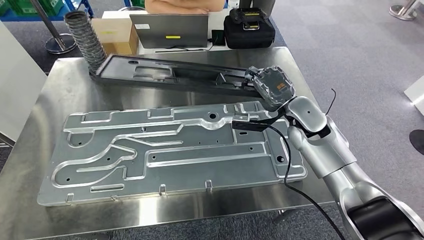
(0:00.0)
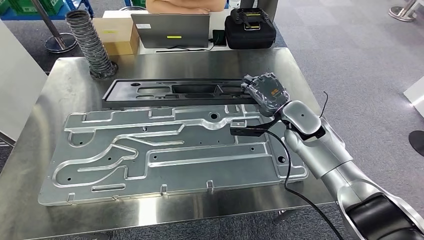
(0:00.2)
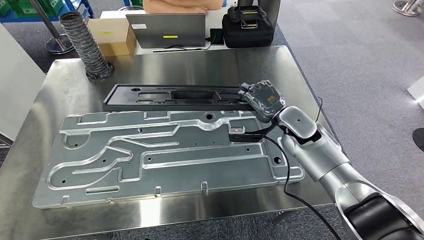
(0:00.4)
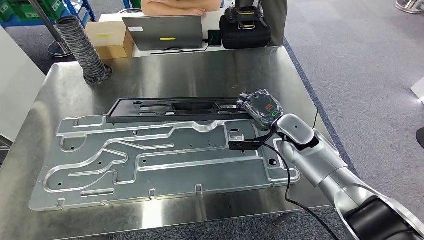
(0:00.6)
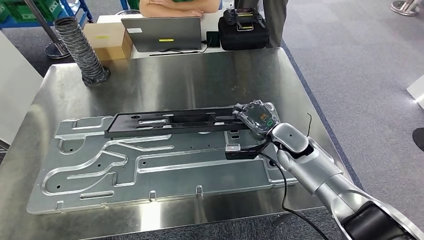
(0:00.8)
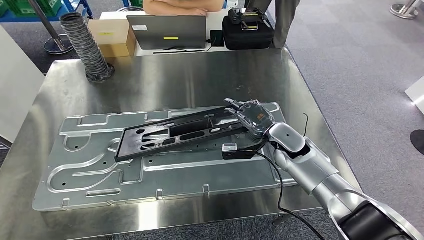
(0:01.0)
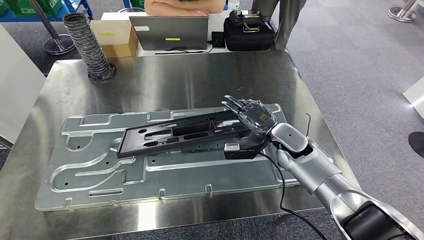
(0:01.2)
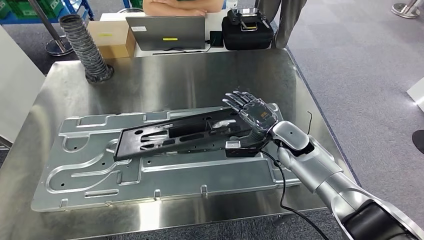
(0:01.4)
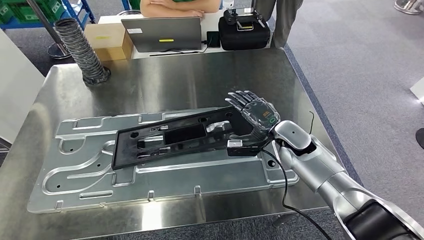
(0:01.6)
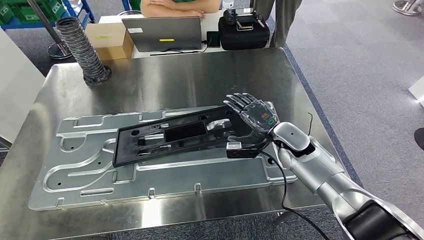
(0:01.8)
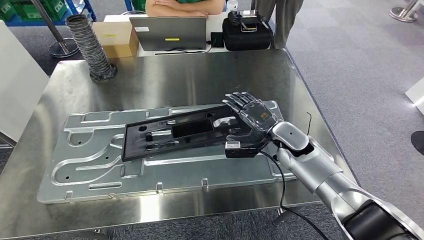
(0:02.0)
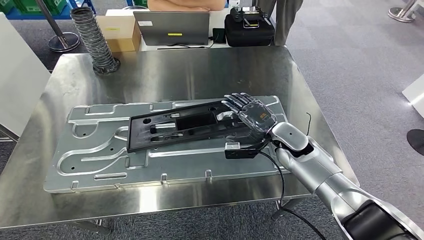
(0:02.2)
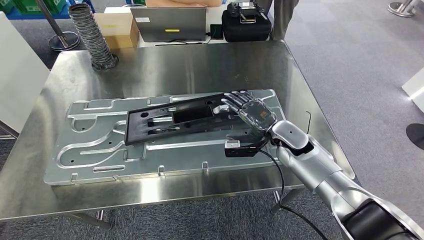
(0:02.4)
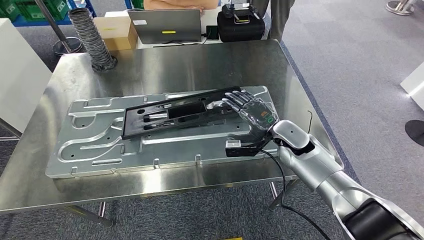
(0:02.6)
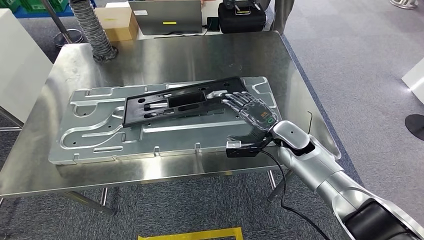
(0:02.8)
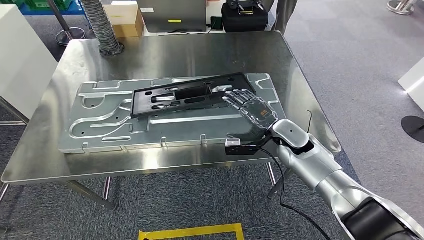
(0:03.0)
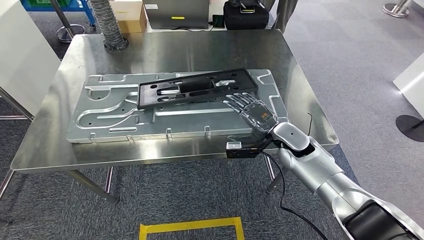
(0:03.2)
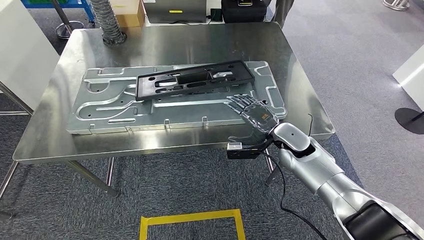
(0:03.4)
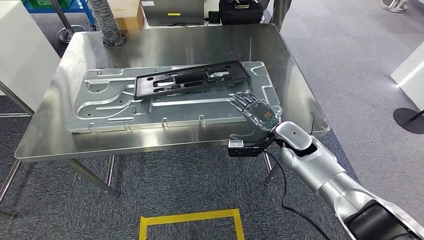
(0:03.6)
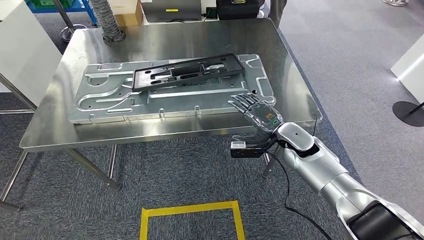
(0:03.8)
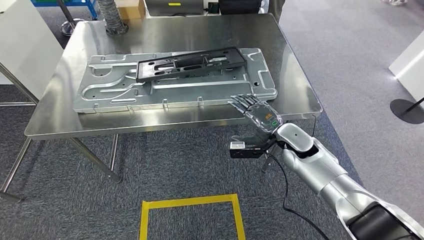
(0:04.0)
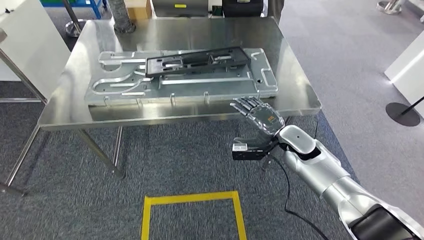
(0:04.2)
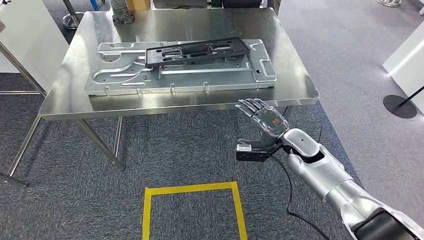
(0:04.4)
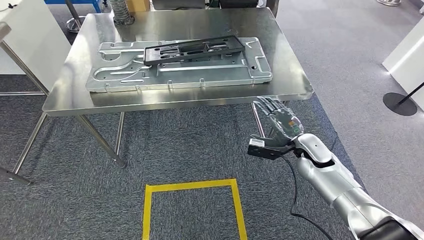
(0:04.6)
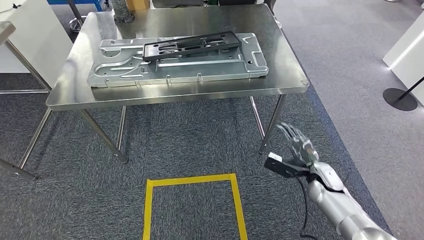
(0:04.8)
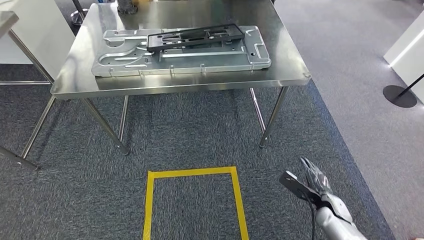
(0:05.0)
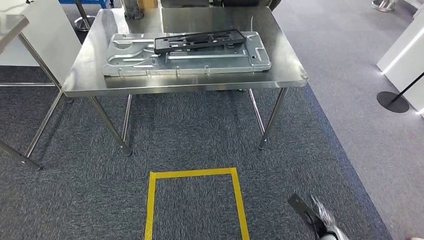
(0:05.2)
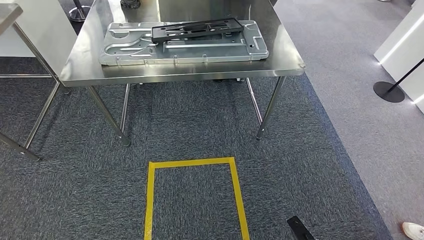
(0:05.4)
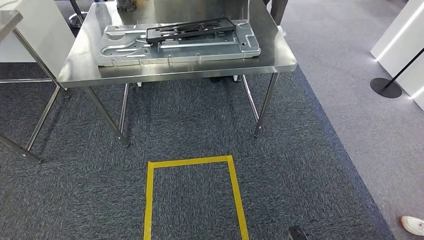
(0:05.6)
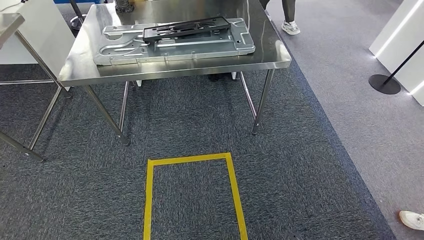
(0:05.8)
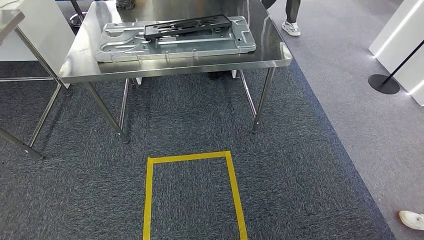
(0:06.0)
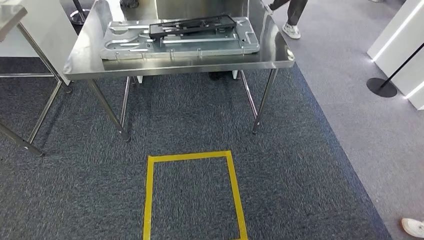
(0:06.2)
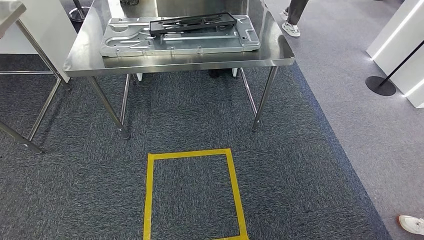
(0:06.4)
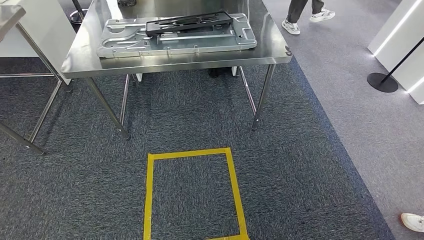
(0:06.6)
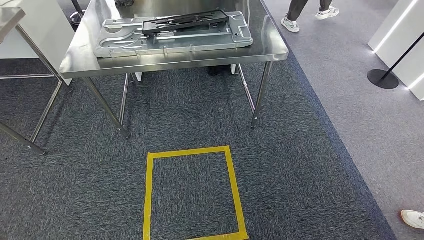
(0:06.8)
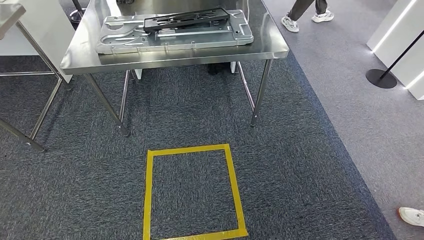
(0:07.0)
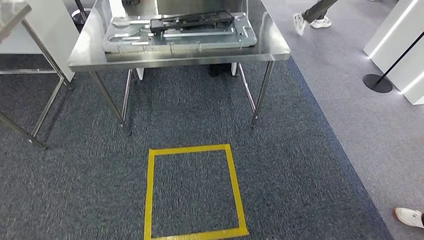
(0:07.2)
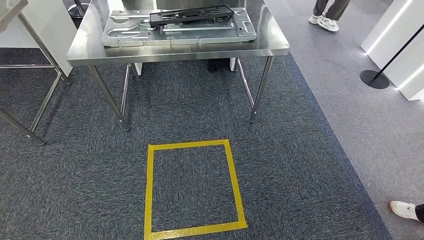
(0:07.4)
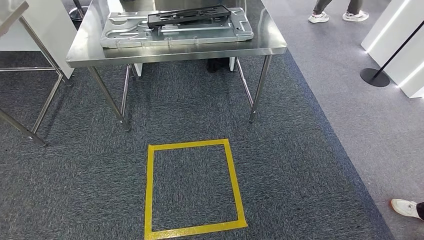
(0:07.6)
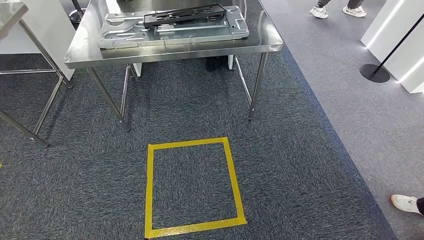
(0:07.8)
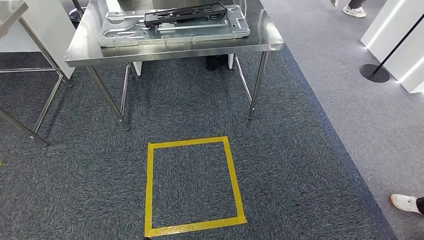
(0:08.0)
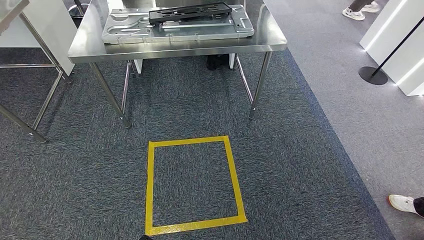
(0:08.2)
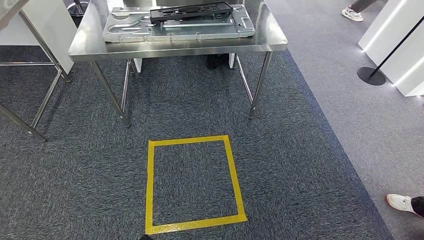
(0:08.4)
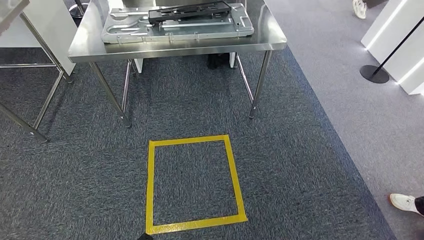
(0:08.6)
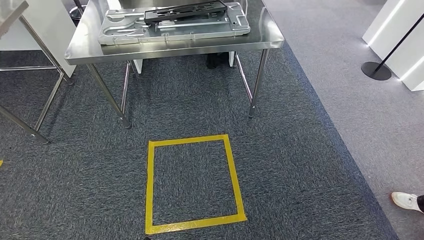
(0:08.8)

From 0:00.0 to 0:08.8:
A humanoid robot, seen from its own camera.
Step, from 0:00.0 to 0:02.0: Insert the large parts into the corresponding slots on the workbench.
Step, from 0:03.2 to 0:08.8: Return to the initial position at the shelf.
From 0:07.4 to 0:08.8: The hands make only small movements.

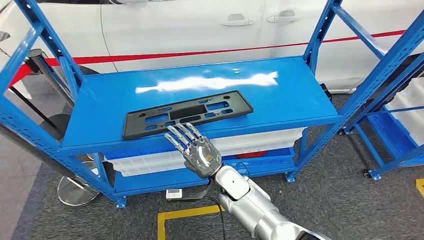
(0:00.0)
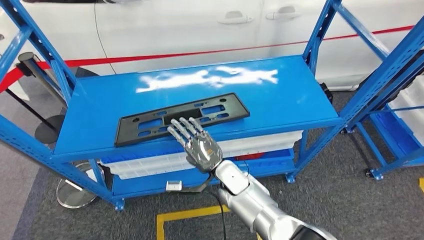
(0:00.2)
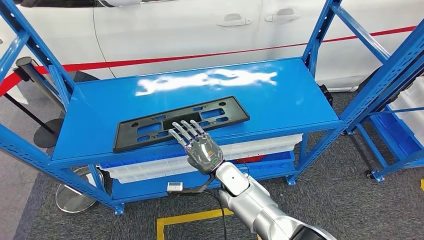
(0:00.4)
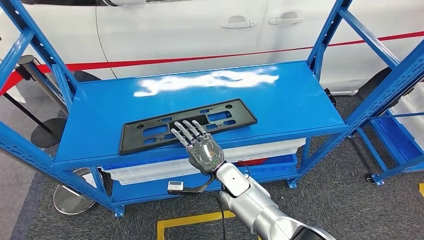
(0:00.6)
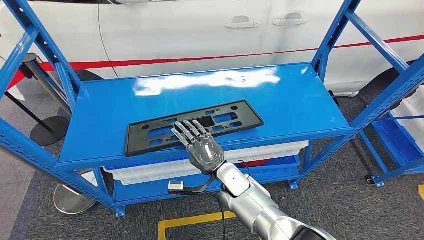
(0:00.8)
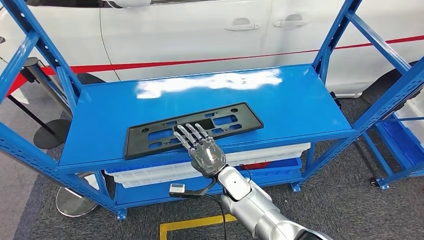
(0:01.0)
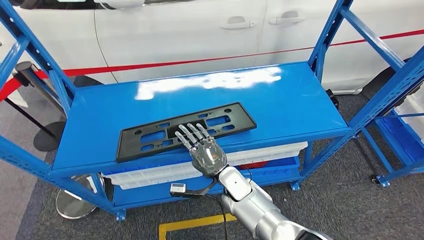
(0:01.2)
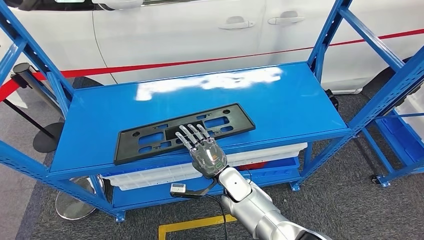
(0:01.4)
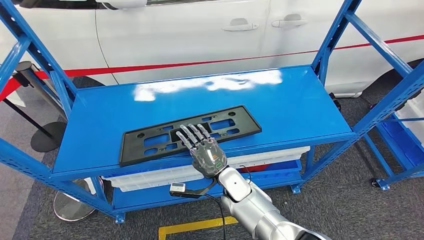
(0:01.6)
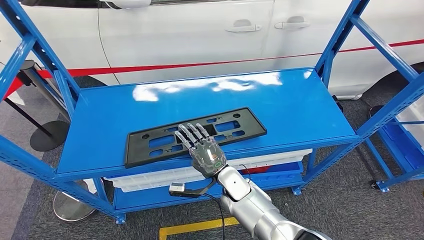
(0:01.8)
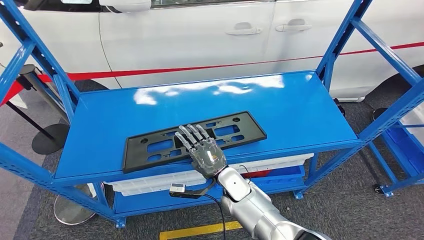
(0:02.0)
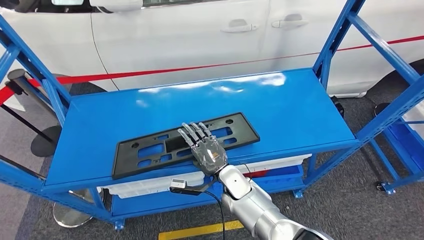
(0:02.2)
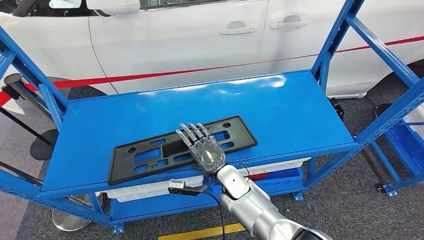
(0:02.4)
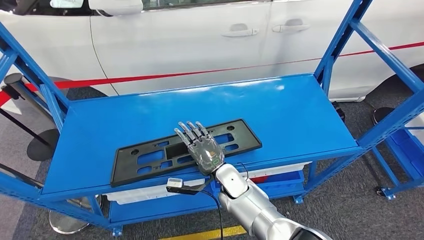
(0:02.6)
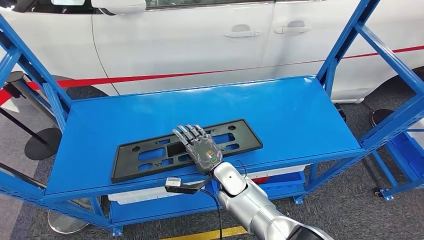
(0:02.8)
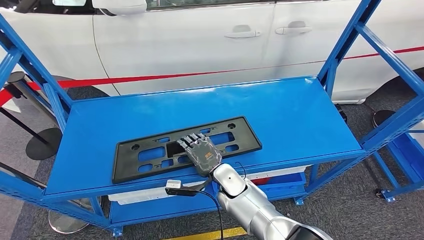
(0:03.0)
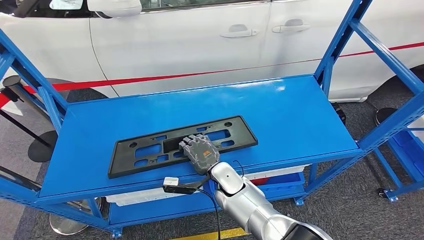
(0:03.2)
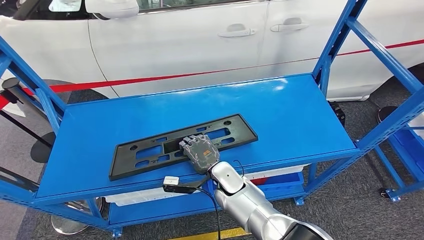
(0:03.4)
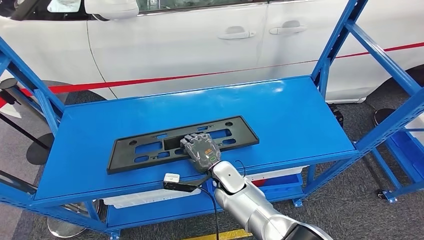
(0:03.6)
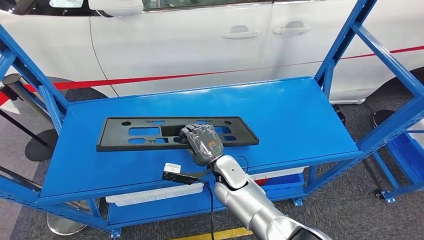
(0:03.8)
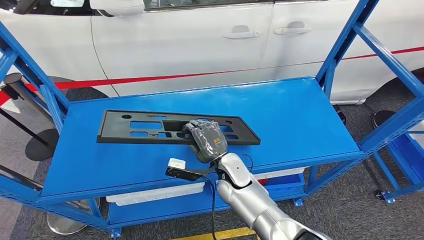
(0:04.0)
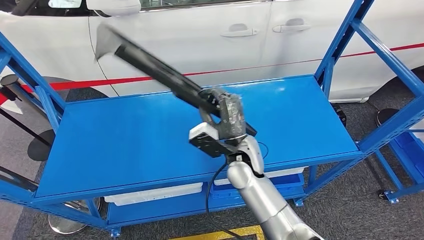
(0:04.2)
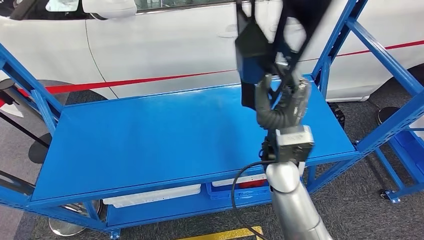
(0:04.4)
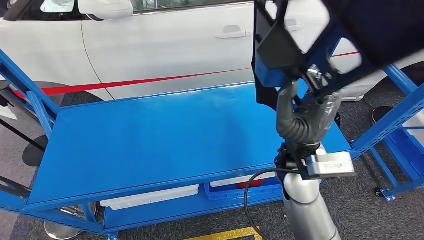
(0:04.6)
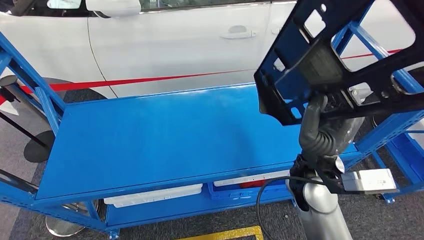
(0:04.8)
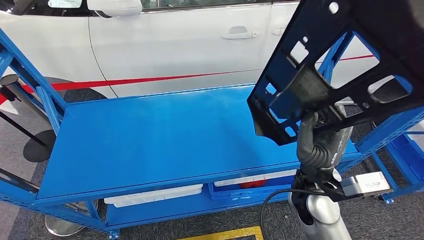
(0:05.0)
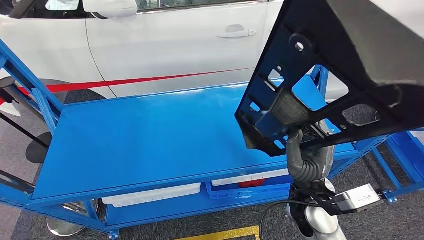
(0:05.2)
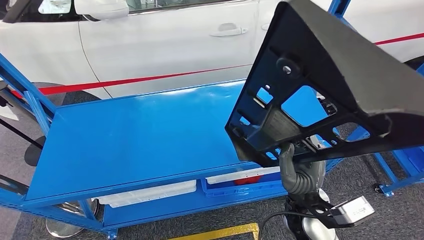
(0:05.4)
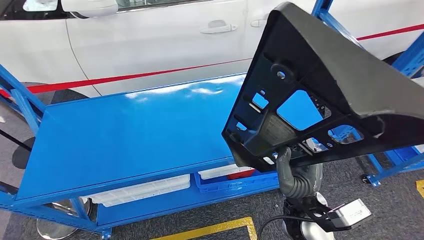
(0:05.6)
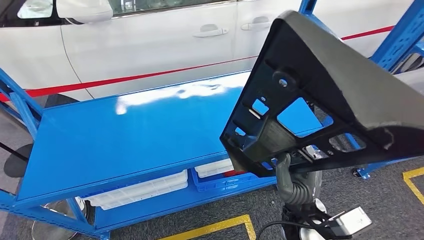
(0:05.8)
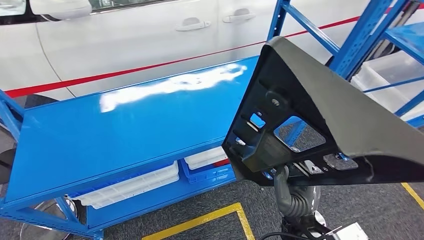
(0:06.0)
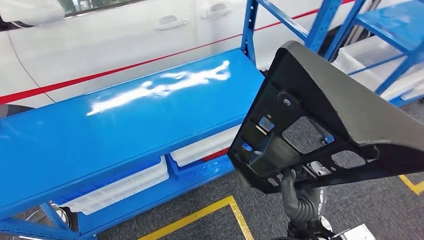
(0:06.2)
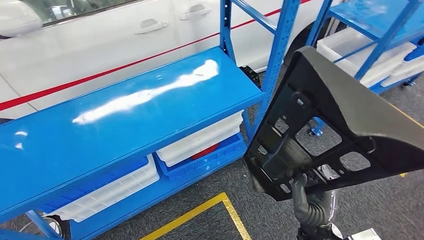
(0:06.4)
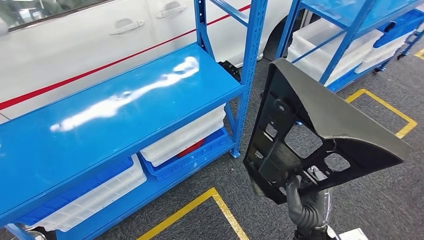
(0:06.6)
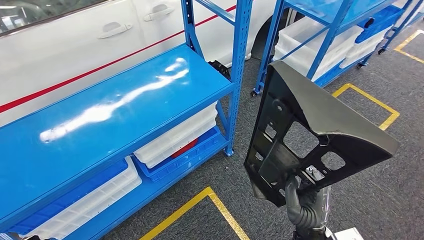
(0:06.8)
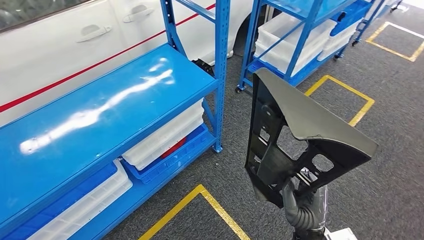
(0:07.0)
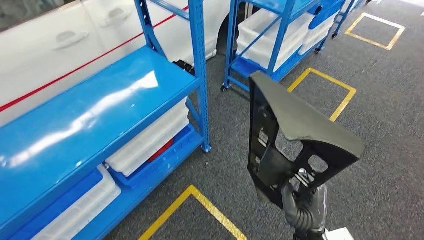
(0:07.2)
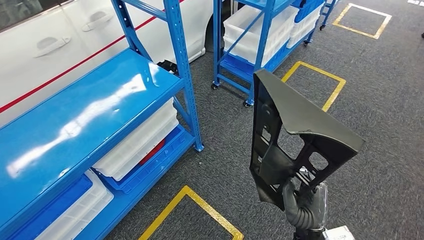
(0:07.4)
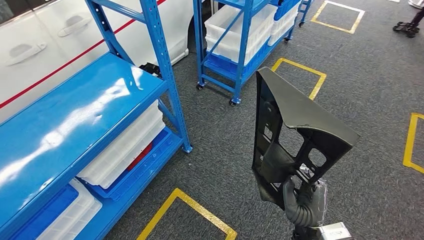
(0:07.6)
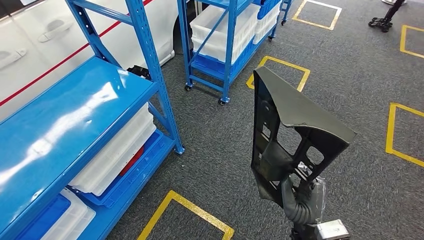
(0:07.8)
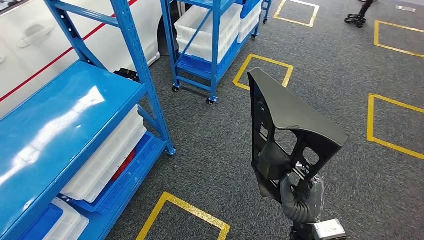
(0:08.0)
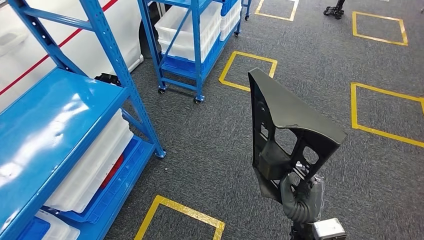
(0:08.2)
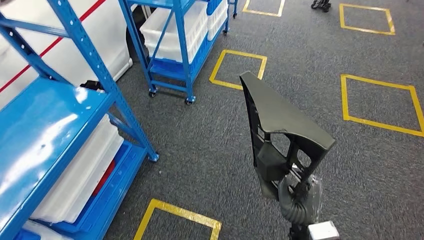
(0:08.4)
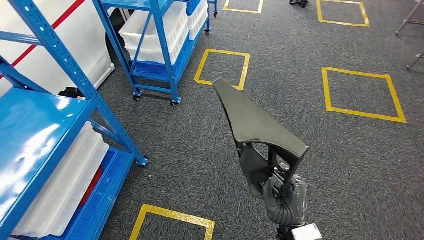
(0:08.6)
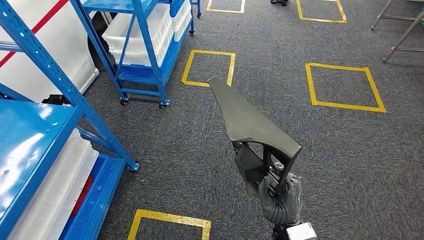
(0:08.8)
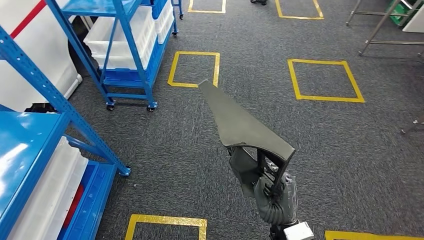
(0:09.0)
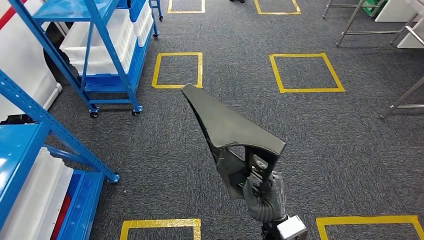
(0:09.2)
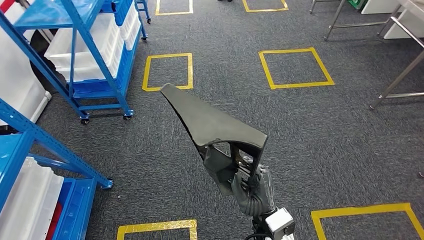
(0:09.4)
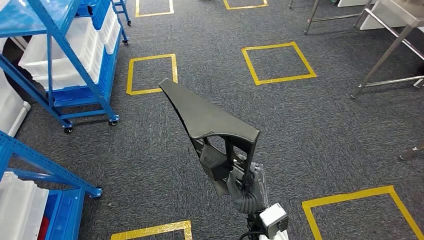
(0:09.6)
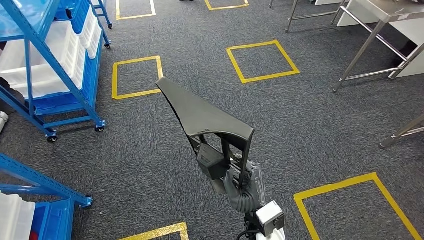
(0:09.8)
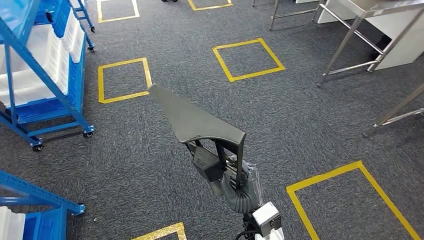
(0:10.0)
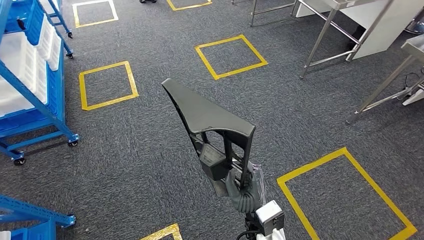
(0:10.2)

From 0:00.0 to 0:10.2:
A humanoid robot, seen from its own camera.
Step, from 0:00.0 to 0:04.0: Pick up the large parts from the shelf.
